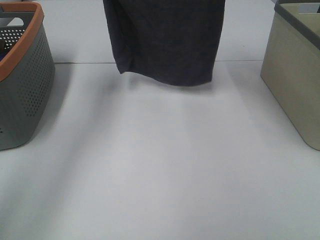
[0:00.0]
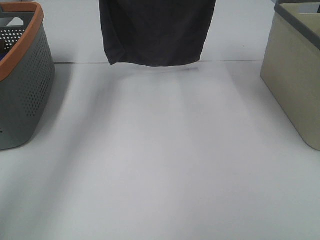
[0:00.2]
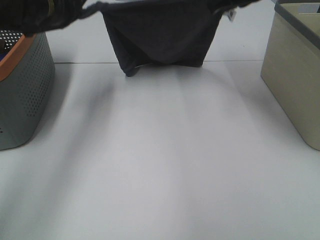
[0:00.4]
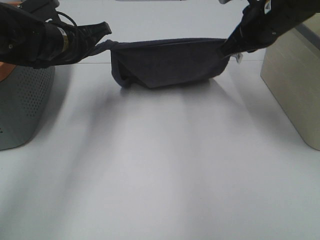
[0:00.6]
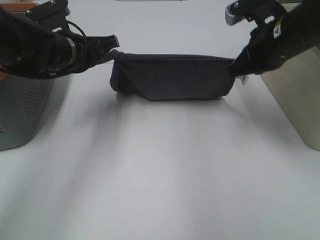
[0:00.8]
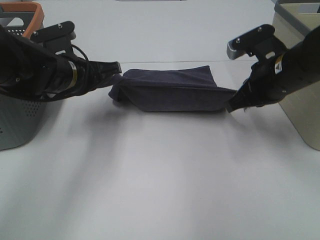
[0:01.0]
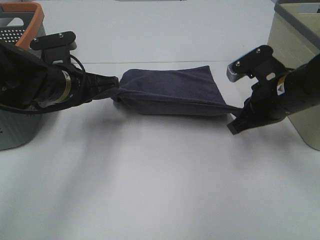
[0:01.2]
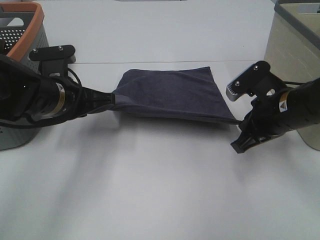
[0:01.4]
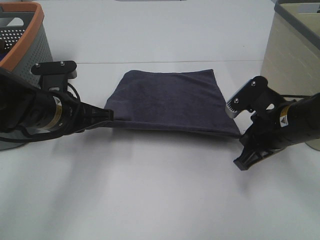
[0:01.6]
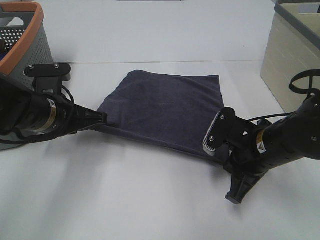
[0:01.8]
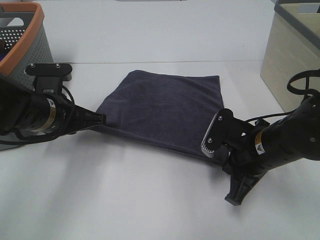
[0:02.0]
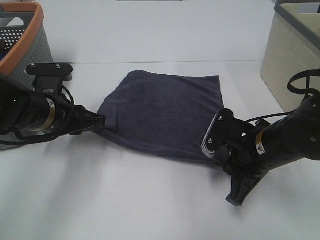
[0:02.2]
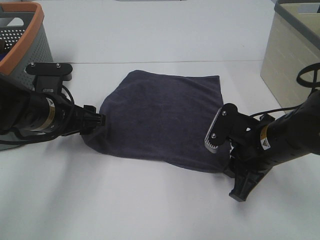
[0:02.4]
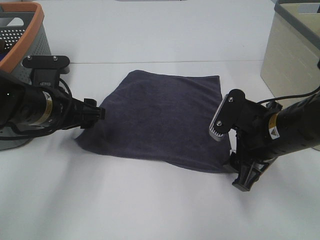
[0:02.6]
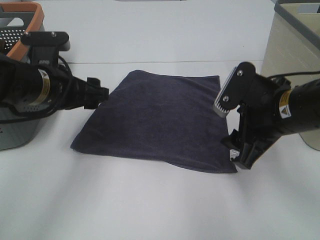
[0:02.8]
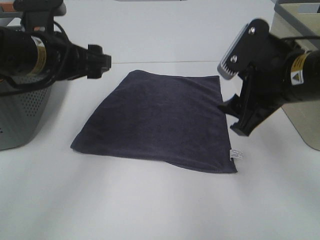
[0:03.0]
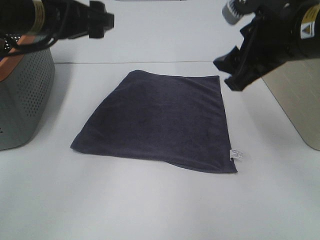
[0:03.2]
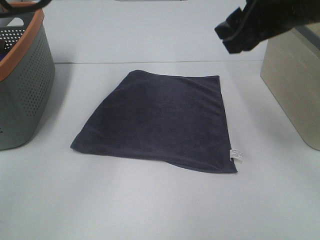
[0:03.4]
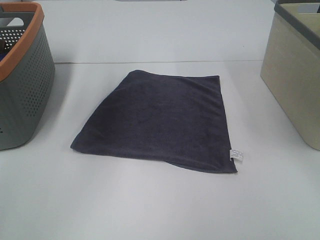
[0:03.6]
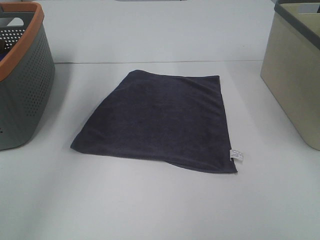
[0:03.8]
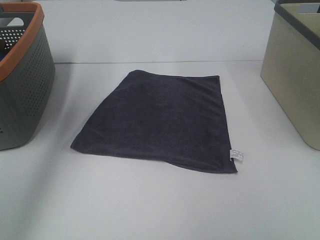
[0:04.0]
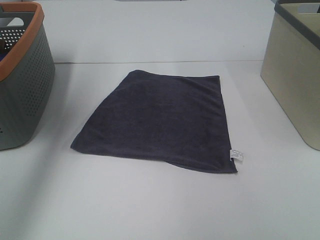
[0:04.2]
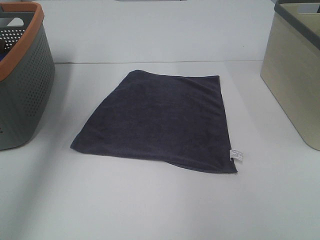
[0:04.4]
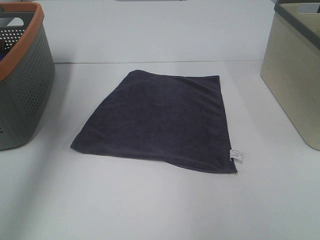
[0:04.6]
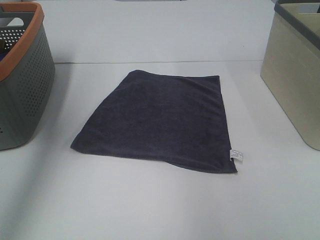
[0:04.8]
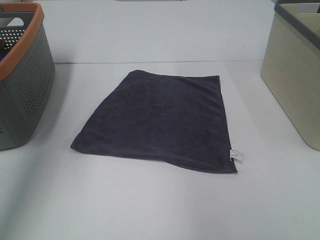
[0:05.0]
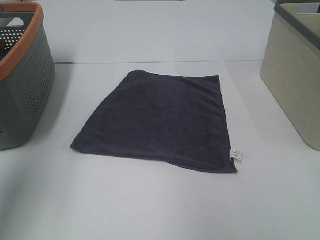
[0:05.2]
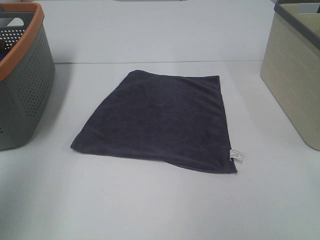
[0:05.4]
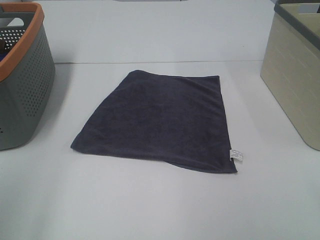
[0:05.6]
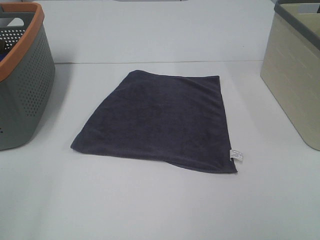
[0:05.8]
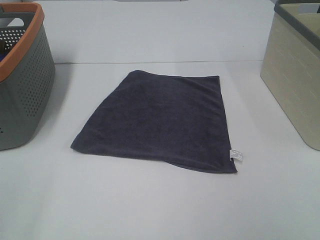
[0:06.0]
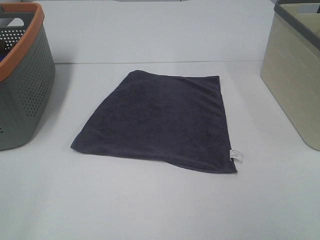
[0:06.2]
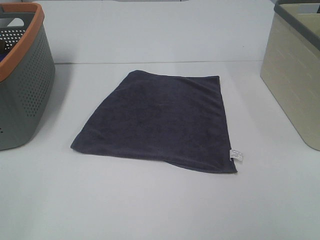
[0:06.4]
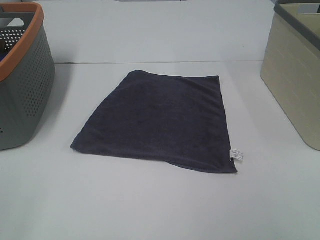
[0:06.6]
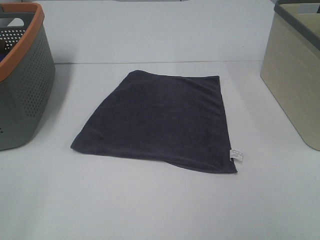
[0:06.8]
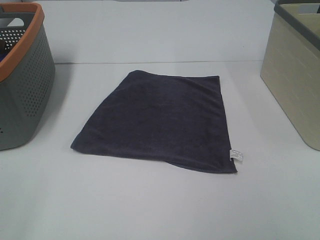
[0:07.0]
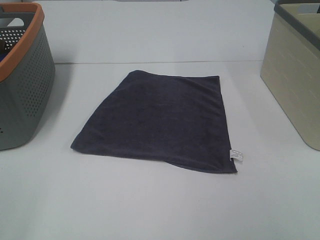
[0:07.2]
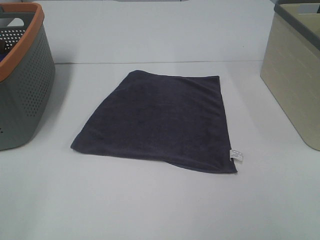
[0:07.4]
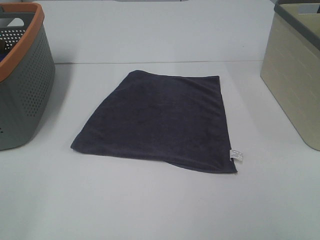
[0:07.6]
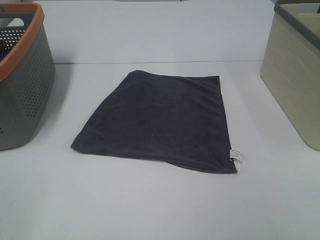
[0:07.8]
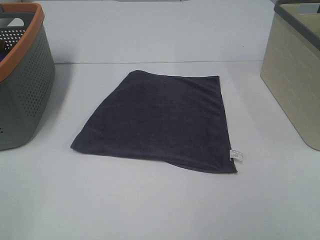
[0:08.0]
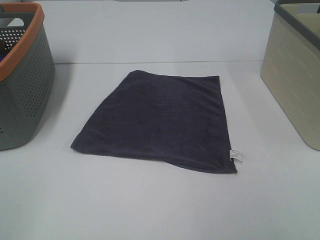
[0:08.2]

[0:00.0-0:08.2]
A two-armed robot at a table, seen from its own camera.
Task of the whole recording: Remove the towel and place it.
0.0 to 1.6 s: The grippers both shift downward and backward by roughly 25 cm.
1.6 to 3.2 s: Both grippers travel together upward, about 15 cm. The right gripper opens its fingers. Meanwhile the left gripper opens.
3.2 to 5.0 s: The left gripper heads to the left, upward and backward, covering roughly 20 cm, while the right gripper heads upward and to the right, covering approximately 20 cm.
5.0 to 6.6 s: The left gripper shifts approximately 25 cm backward and downward.

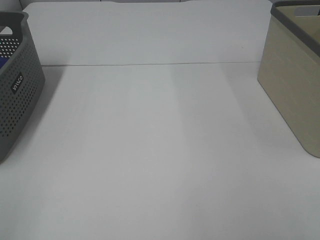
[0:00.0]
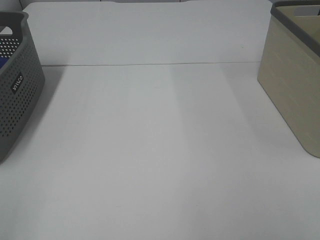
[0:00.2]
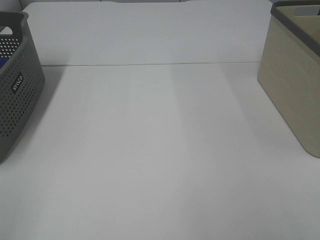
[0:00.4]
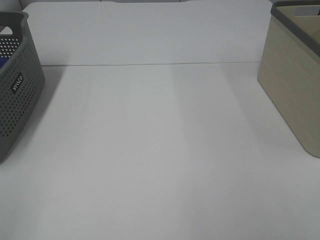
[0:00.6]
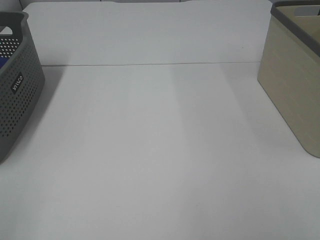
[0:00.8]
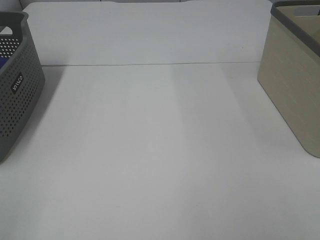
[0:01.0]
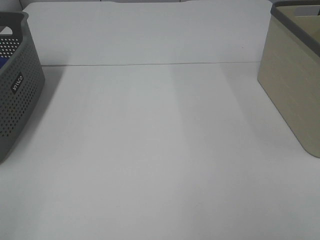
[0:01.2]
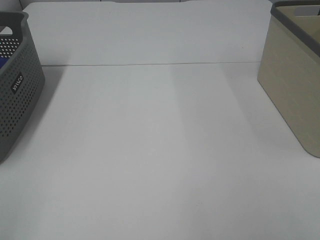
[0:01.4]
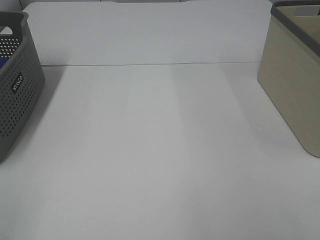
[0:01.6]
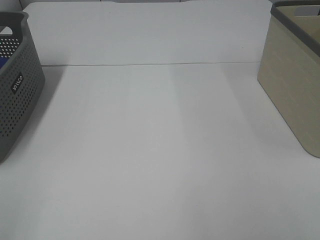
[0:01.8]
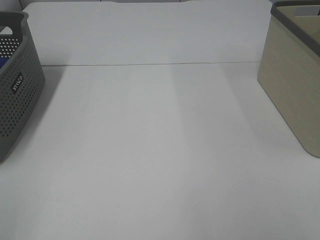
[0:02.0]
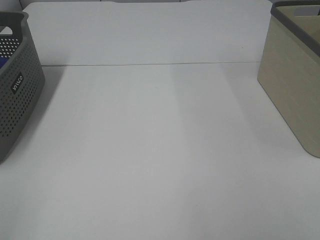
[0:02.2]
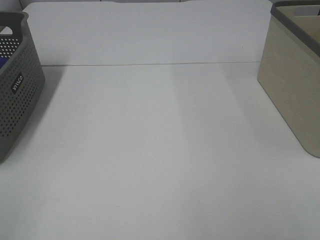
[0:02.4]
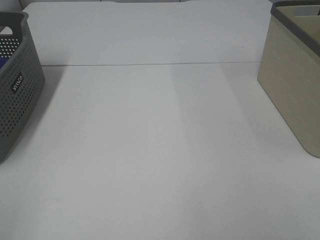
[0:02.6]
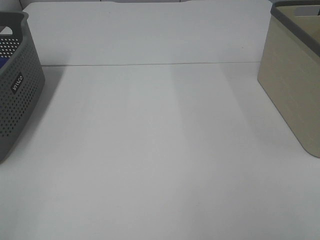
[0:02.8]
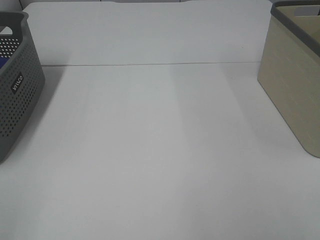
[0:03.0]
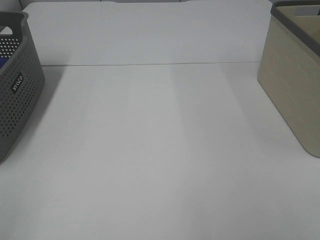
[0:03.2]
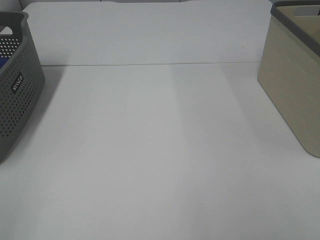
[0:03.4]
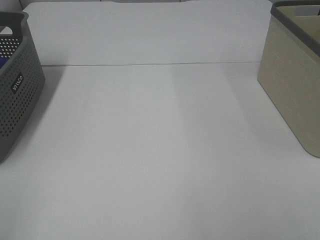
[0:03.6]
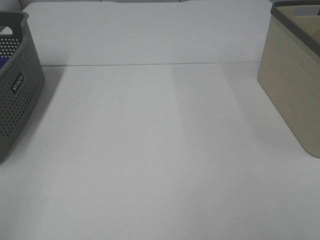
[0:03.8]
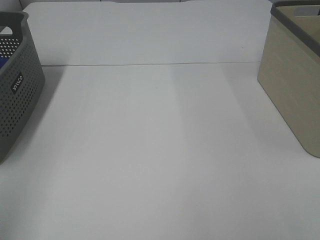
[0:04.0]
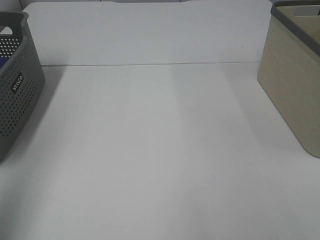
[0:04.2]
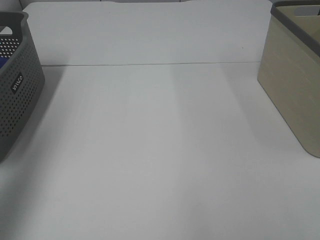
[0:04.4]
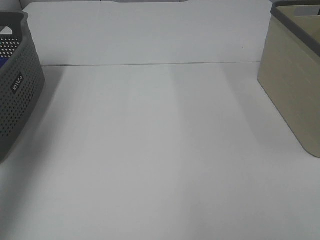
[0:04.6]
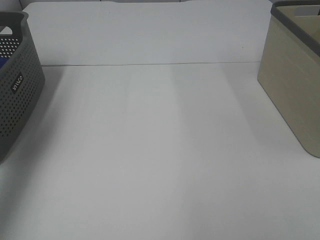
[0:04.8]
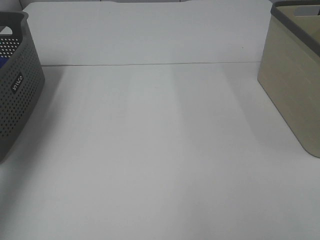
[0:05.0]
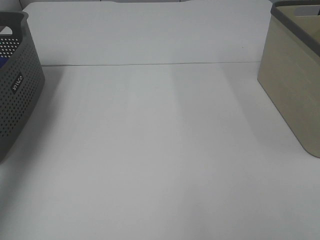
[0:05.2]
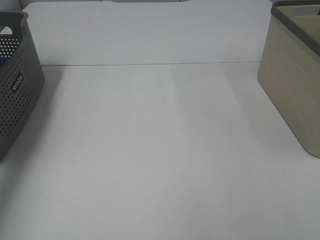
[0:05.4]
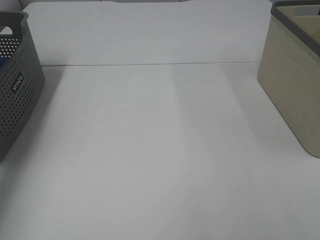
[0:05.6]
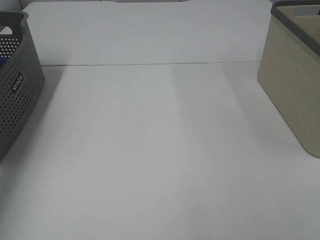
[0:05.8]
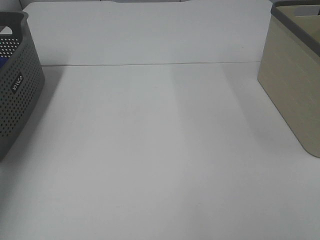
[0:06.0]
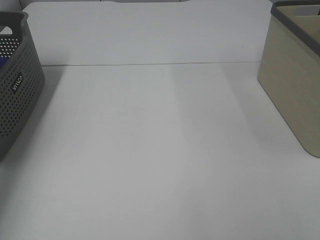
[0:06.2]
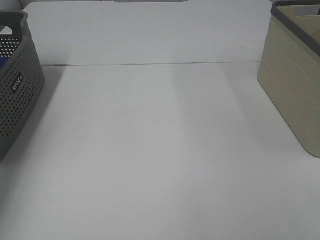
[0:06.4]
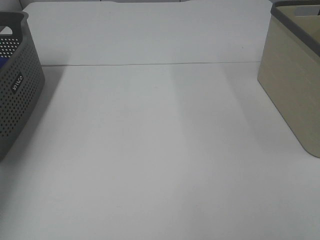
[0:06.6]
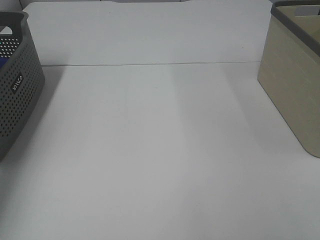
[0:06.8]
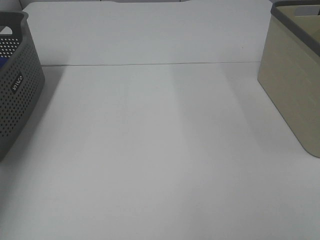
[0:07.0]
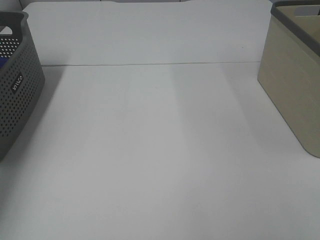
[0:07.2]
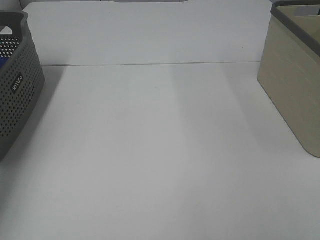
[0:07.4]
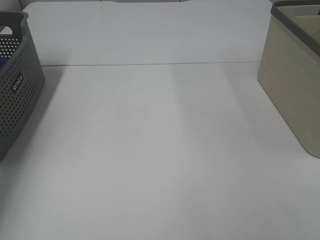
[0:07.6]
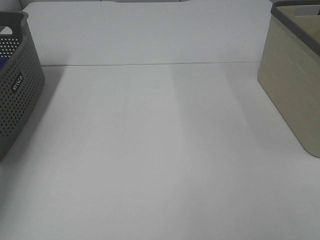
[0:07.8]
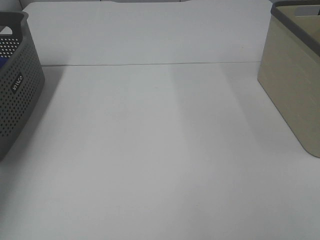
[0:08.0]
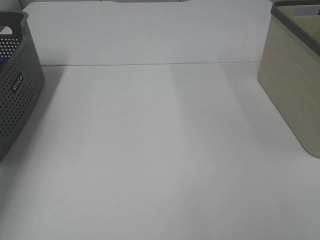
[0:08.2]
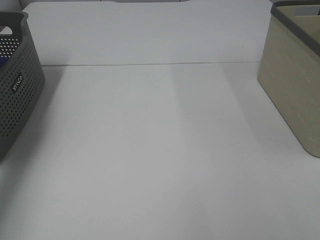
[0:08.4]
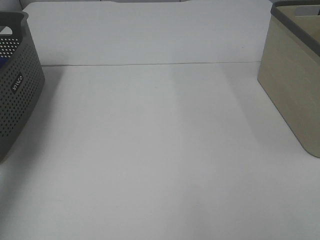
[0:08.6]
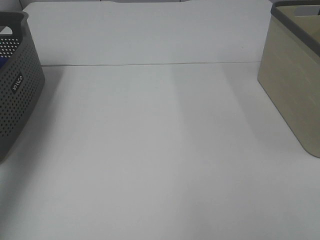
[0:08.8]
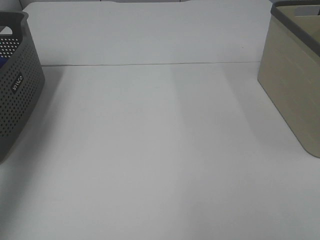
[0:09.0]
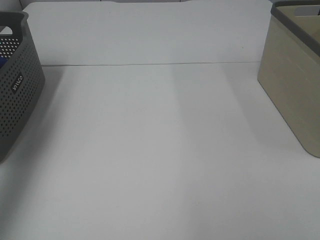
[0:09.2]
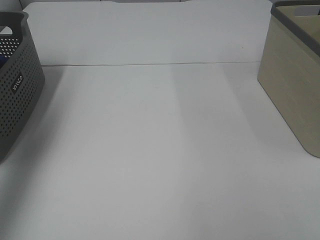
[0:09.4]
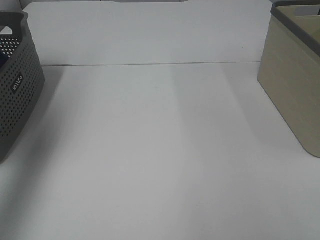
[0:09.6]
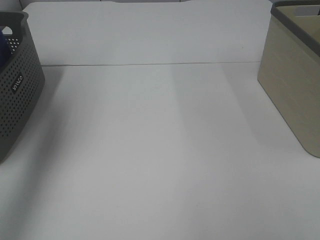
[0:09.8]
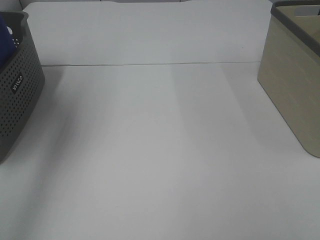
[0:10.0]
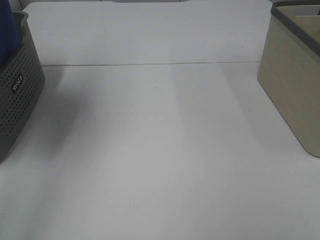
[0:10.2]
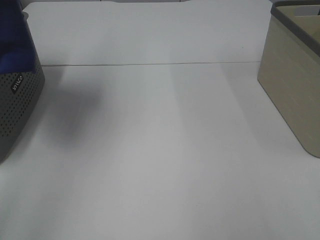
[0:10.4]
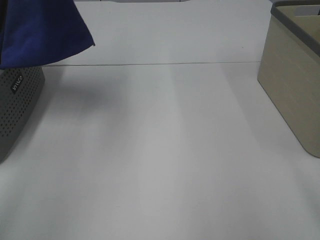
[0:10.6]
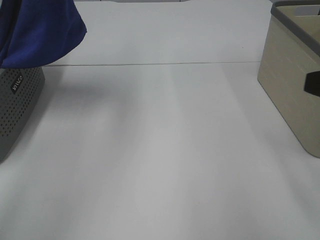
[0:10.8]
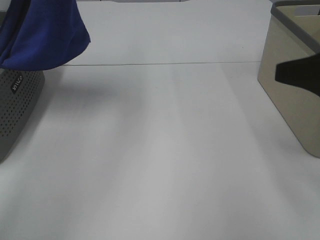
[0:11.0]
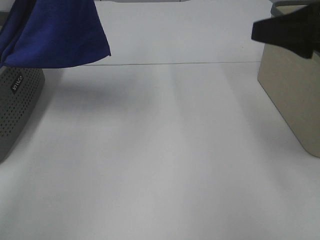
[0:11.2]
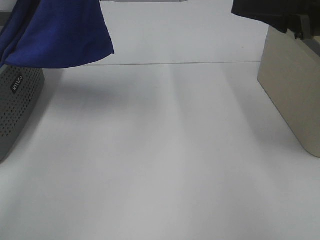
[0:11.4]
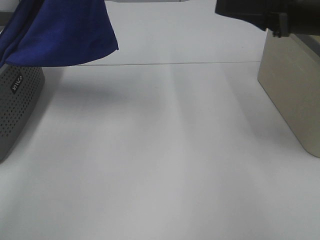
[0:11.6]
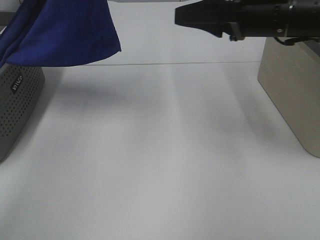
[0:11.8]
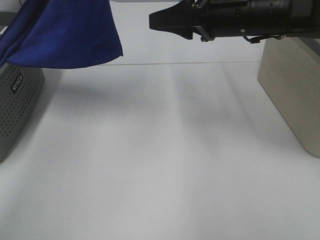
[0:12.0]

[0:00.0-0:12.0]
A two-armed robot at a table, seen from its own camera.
Task of the whole recording: Remove the towel and place it.
0.0 to 3.0 s: Both grippers stay about where they are.
3.0 to 4.4 s: The left gripper is displaced forward and upward by about 25 cm.
4.4 to 6.0 s: The left gripper shifts about 30 cm forward and downward.
7.6 to 9.0 s: The left gripper goes approximately 25 cm upward and backward.
9.0 to 10.4 s: The right gripper shifts by approximately 5 cm. The left gripper heads to the right and upward, covering some 20 cm.
10.4 to 12.0 s: The left gripper shifts about 10 cm to the right. Meanwhile the right gripper goes approximately 35 cm forward and to the left.

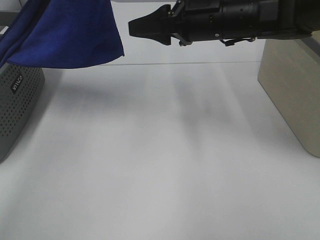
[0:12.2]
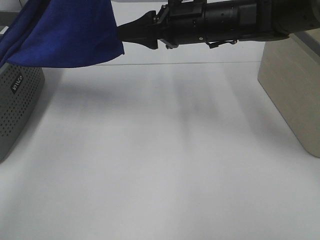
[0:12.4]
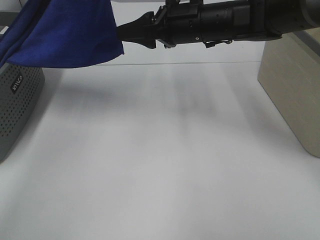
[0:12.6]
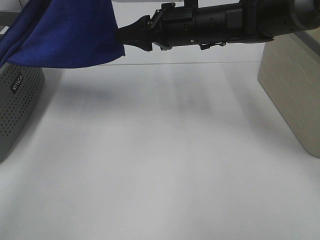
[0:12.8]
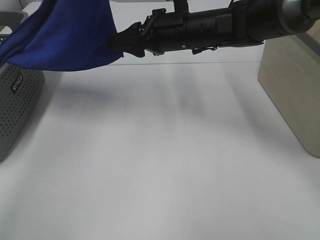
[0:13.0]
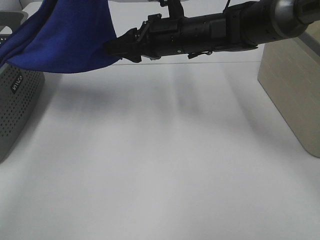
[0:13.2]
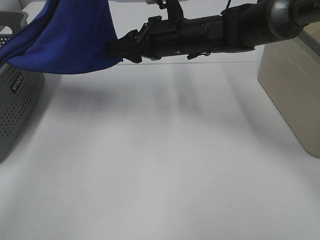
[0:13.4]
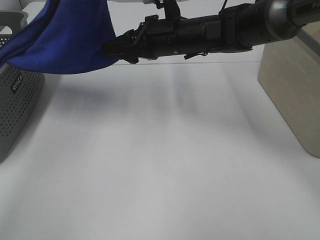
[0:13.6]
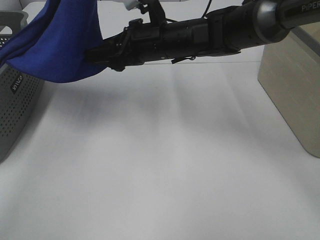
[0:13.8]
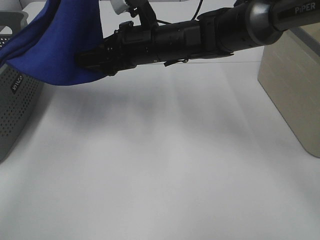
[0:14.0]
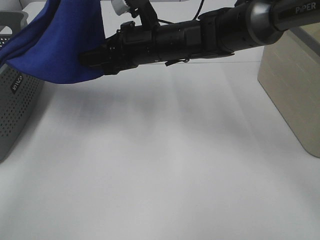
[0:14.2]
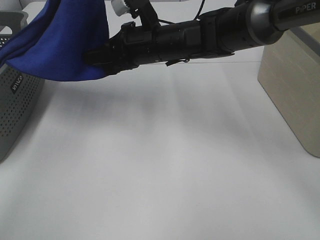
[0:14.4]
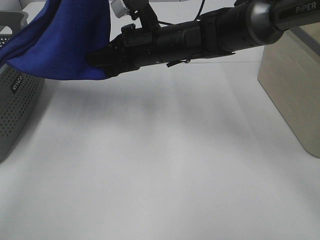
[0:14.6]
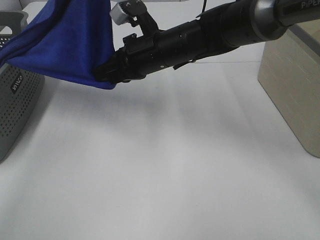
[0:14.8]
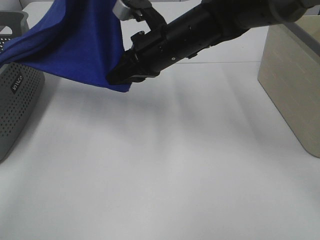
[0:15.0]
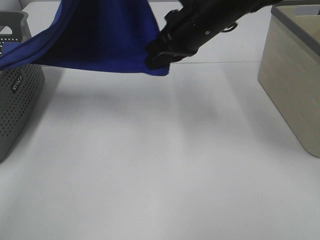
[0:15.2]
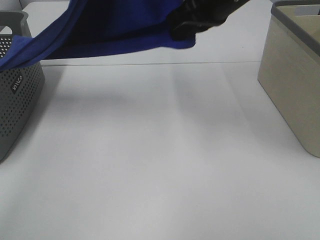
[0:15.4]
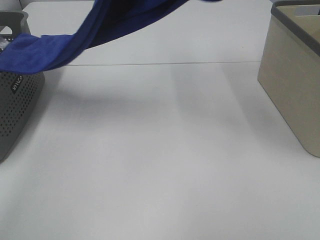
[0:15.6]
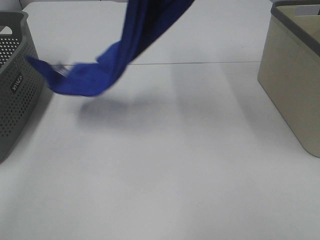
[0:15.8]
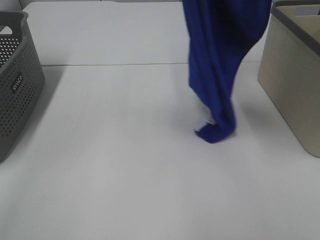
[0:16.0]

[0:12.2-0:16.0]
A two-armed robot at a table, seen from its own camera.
Task of the whole recording: Remove the towel and place it.
12.2 to 13.4 s: The right gripper changes place by some 10 cm.
13.4 to 14.8 s: The right gripper shifts by some 5 cm, and closes its fingers.
14.8 to 16.0 s: The right gripper goes some 30 cm upward and to the right. The left gripper heads upward, covering some 5 cm.
